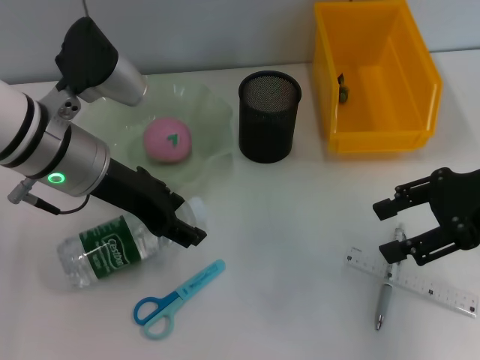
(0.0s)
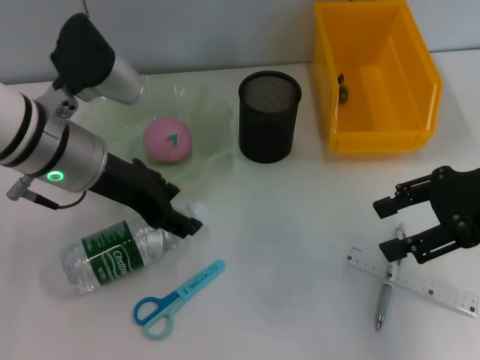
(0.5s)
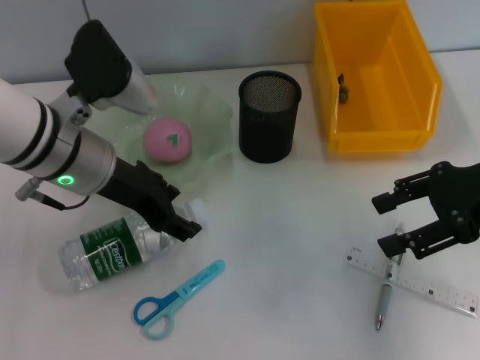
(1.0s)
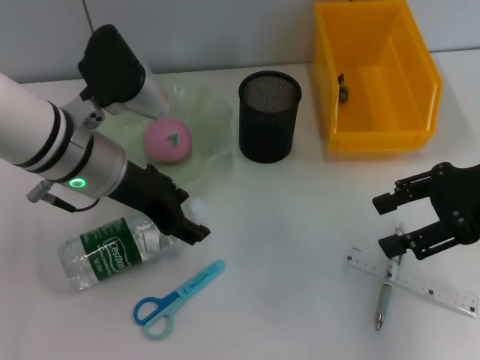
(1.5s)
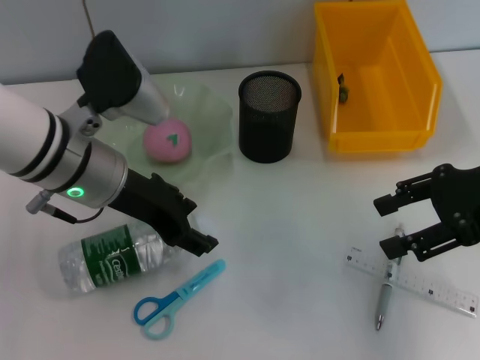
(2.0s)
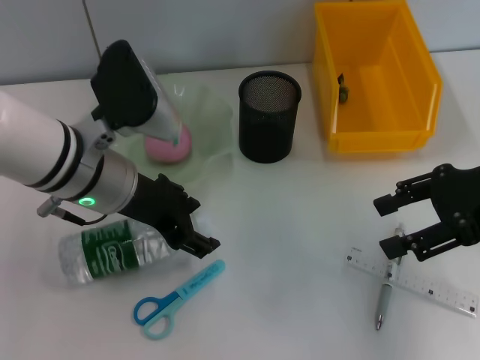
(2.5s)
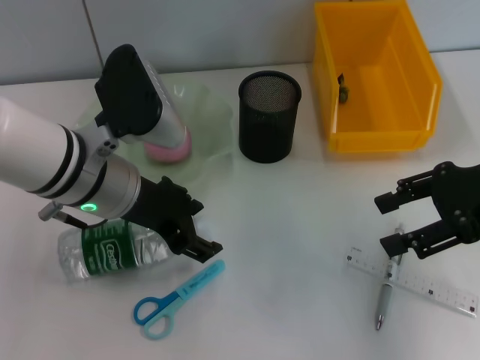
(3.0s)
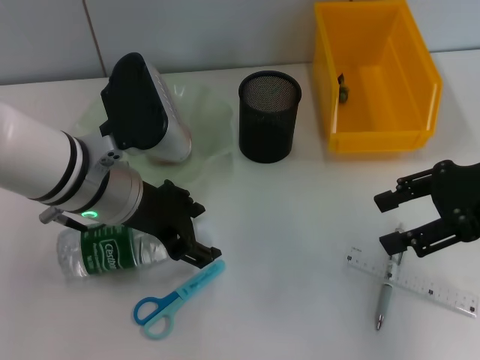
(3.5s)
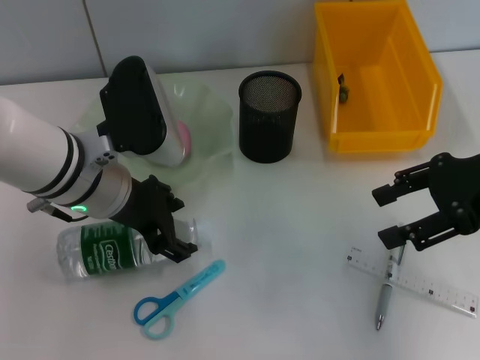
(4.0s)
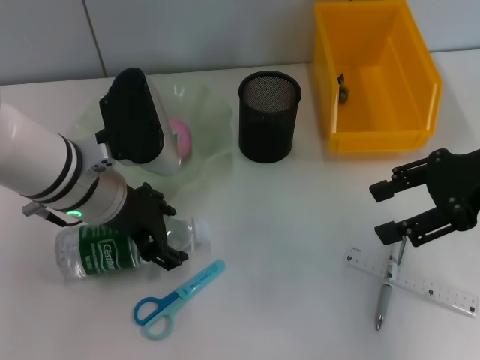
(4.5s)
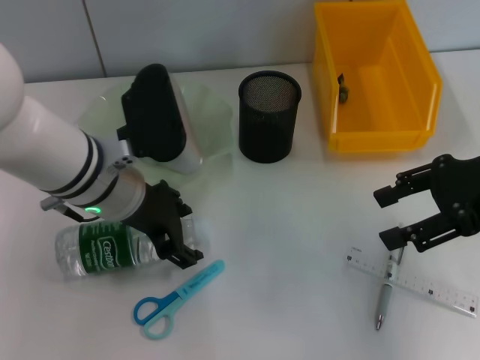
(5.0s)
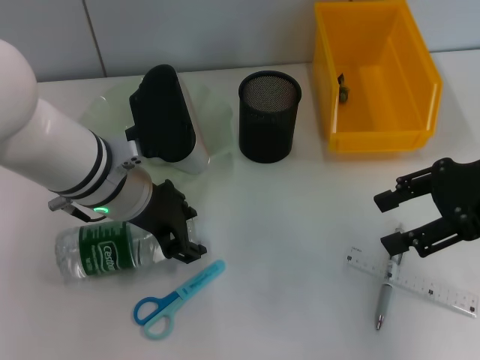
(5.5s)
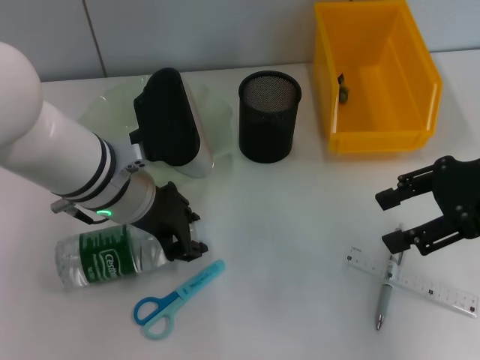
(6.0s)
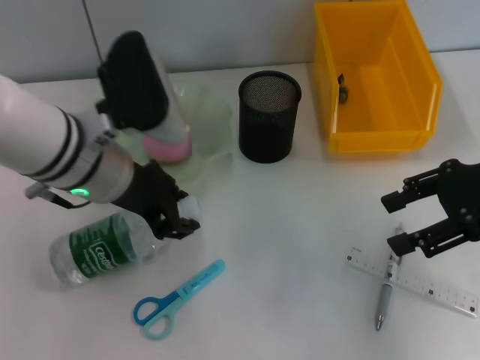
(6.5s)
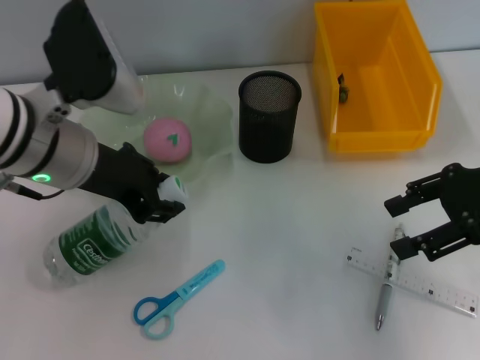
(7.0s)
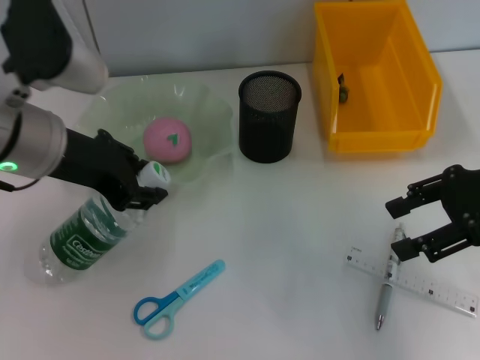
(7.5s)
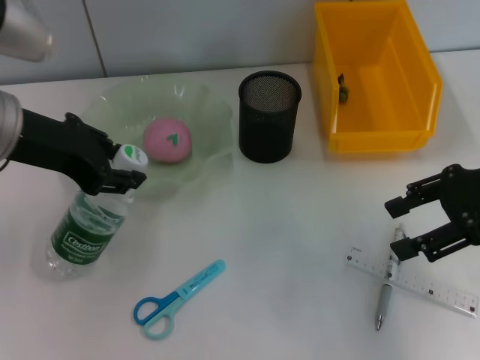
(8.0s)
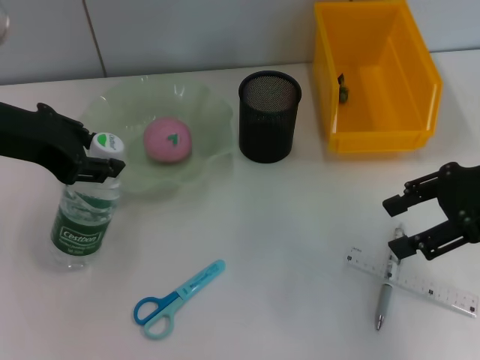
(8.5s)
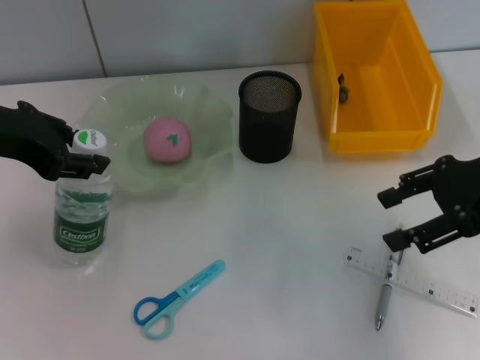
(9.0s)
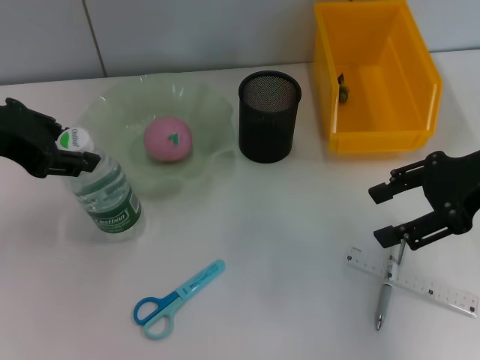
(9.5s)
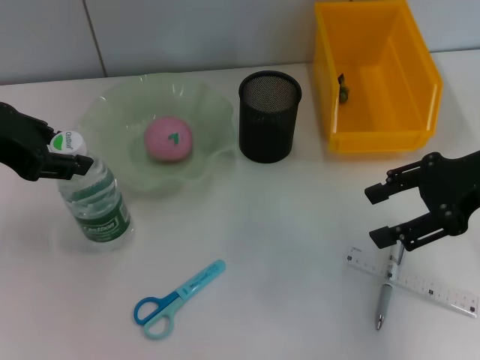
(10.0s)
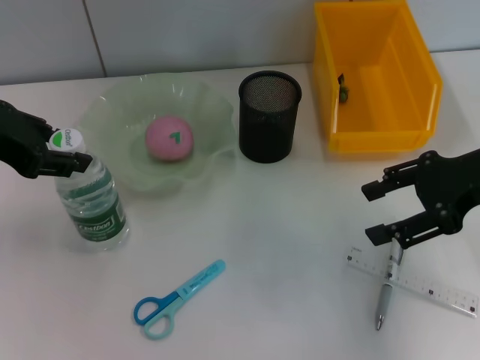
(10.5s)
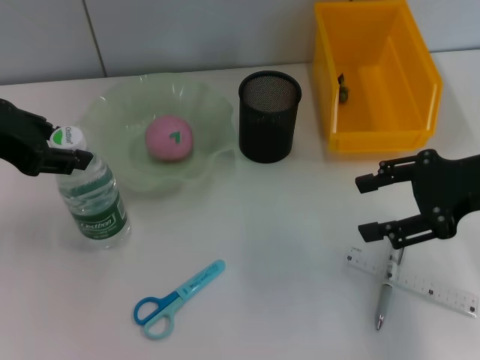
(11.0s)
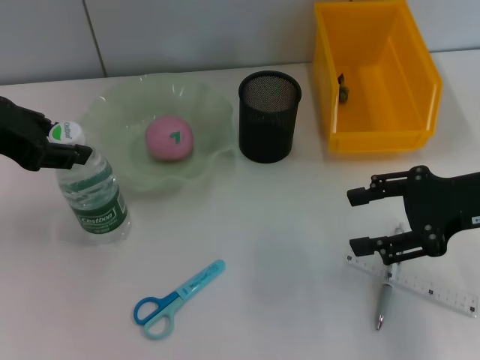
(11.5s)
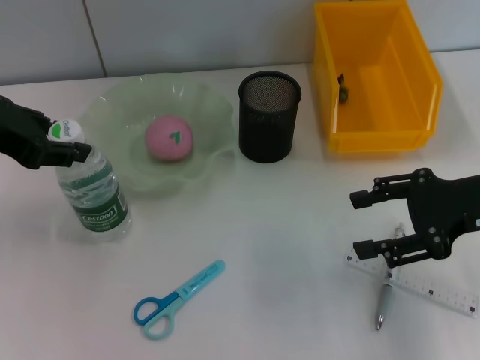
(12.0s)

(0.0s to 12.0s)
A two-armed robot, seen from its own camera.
Step, 0.0s - 5.5s: Grab the water bottle with the left hand.
0.0s - 2.0s: There are only small adjustments of the grippers.
2.0s - 4.0s: The grippers move only a little.
4.0s - 6.0s: The left gripper closes.
6.0s - 8.0s: The left gripper shifts about 15 cm to the left and upward.
8.0s - 10.0s: The left gripper shifts by roughly 5 cm.
10.0s - 12.0s: The grippers stay close to where they were, moving slightly.

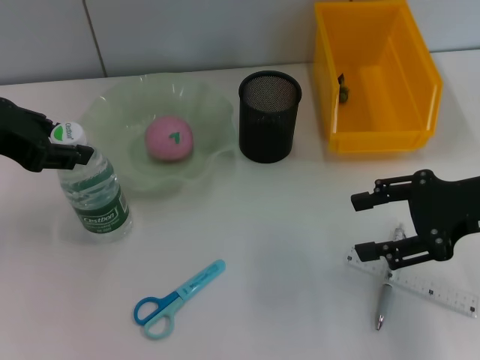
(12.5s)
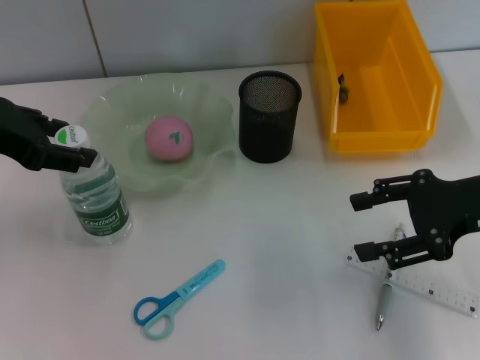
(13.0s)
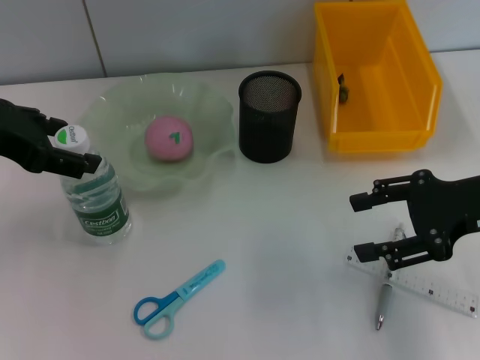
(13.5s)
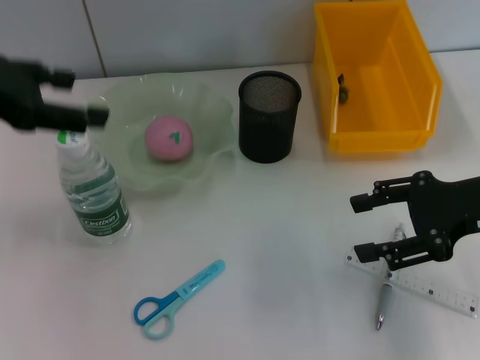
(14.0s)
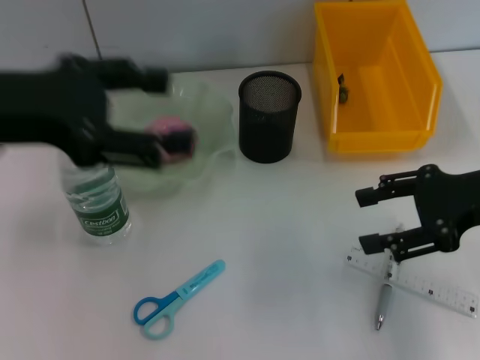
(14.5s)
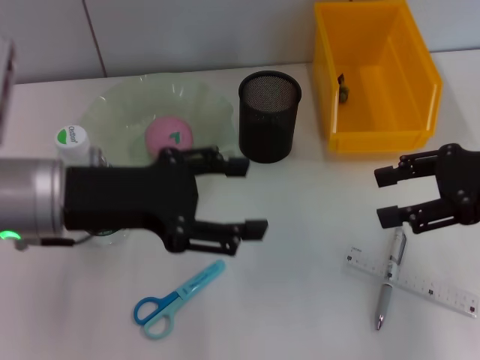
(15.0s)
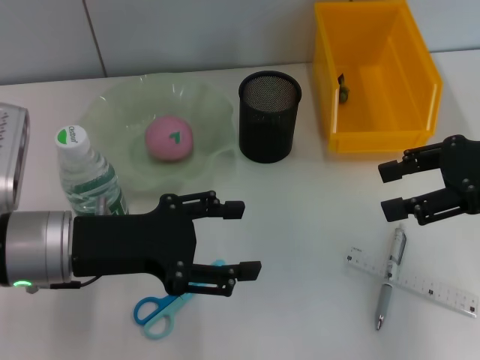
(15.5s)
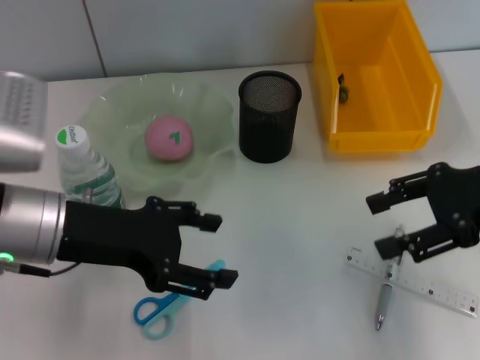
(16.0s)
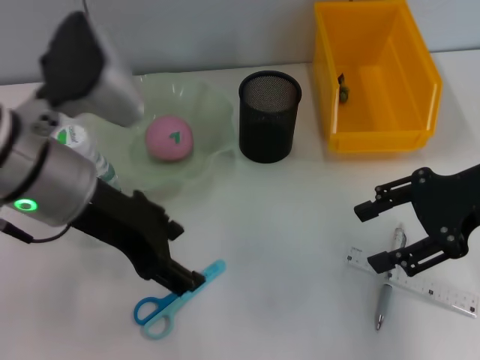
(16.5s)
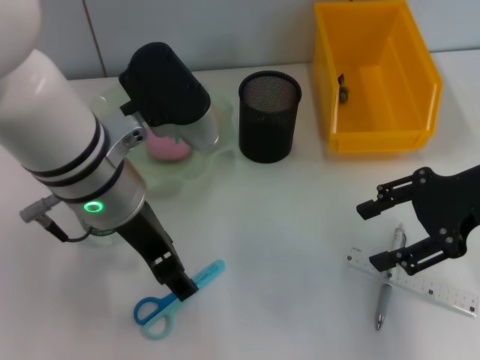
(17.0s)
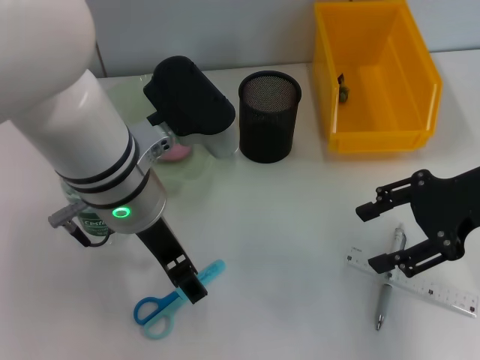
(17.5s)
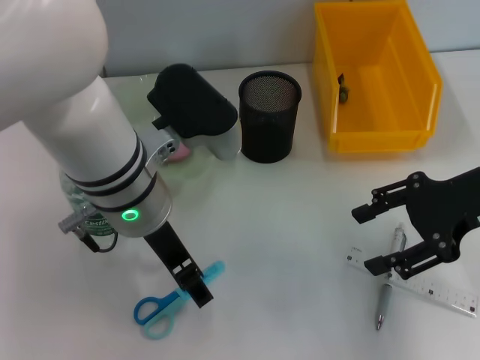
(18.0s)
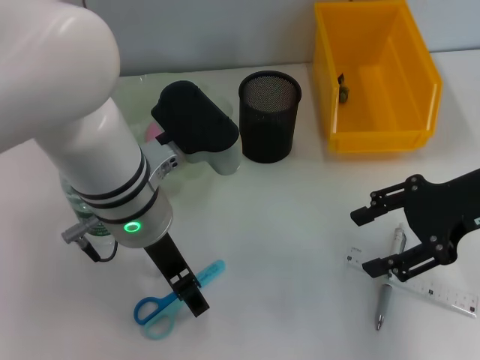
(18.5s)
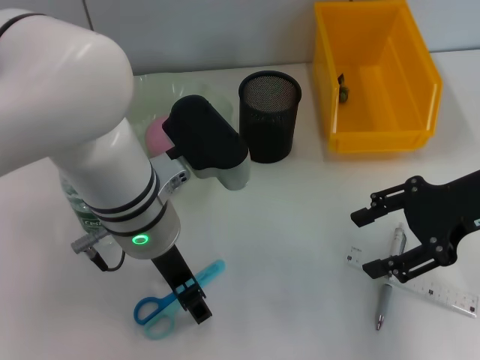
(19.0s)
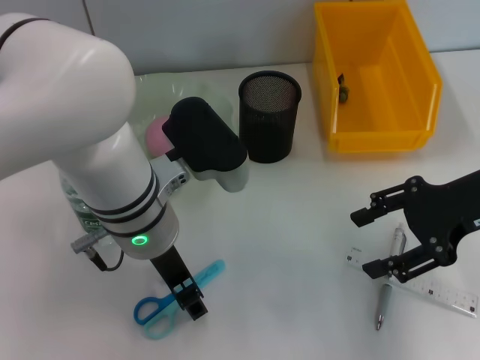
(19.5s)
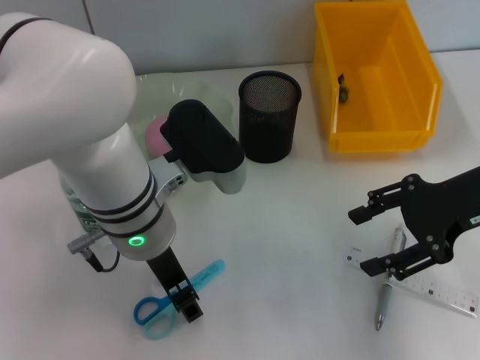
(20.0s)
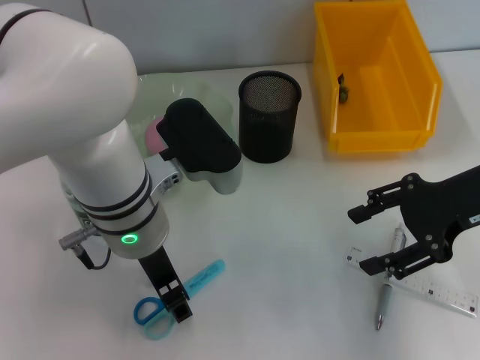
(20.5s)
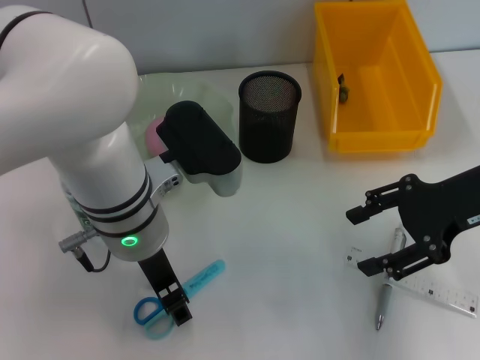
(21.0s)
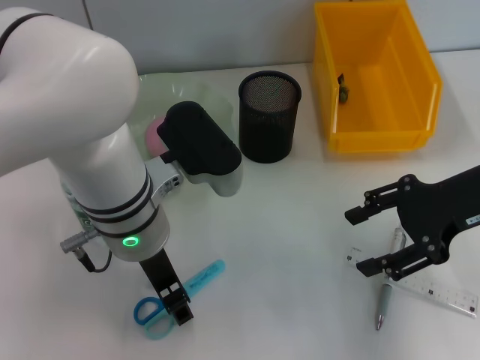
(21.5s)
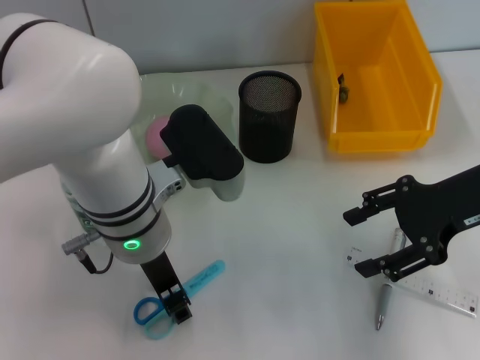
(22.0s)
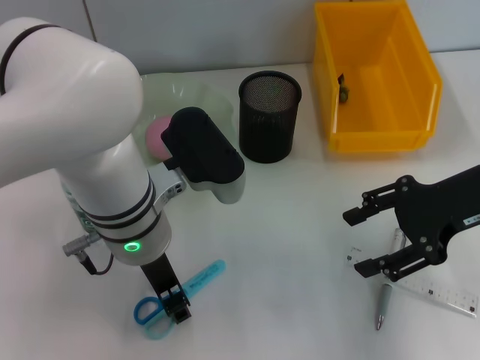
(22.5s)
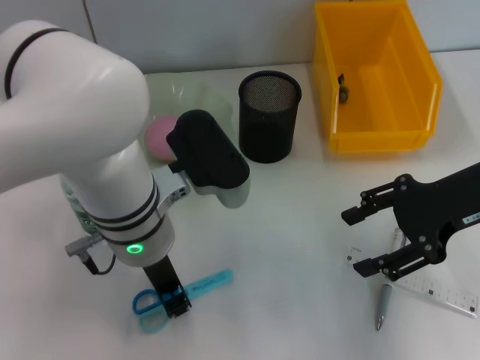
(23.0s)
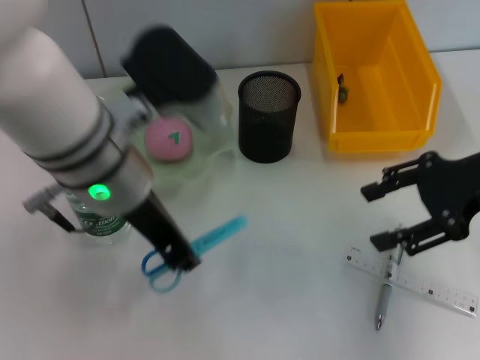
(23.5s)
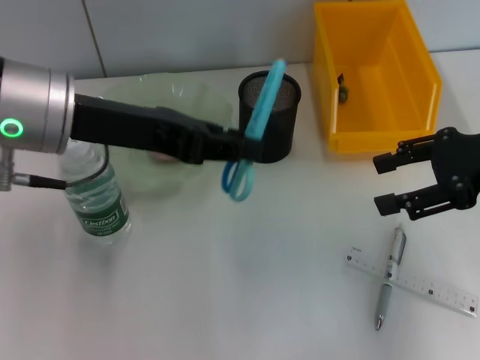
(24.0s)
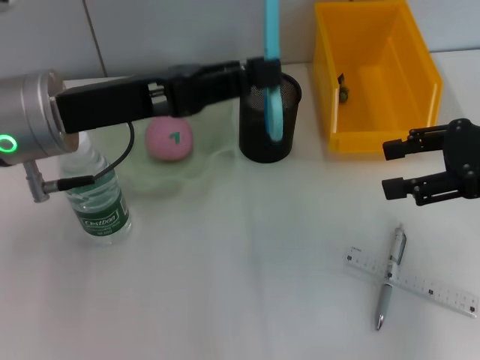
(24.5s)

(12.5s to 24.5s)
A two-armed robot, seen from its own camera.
Step, 14.0s - 22.5s: Grab the blue scissors with the left hand.
12.5s - 14.5s: The left gripper changes place by approximately 5 cm, and opens.
14.5s - 16.5s: The left gripper heads to the right, covering some 5 cm, and moves about 15 cm downward and comes back.
16.5s - 18.5s: The left gripper heads to the right and downward, covering approximately 10 cm.
18.5s - 20.5s: The left gripper closes its fingers.
20.5s - 22.5s: The two grippers keep their place.
22.5s - 24.5s: The right gripper moves about 5 cm, while the left gripper goes roughly 10 cm to the left and upward, and closes.

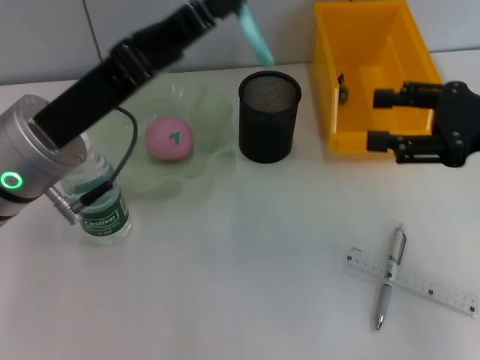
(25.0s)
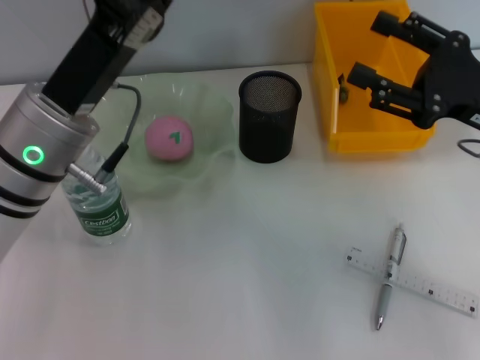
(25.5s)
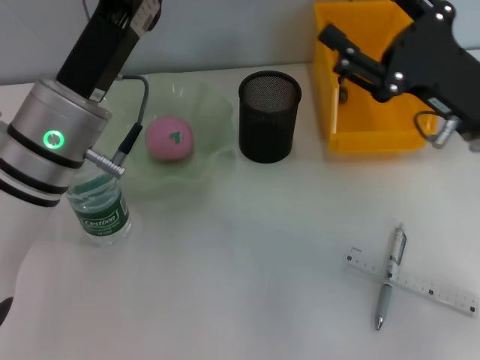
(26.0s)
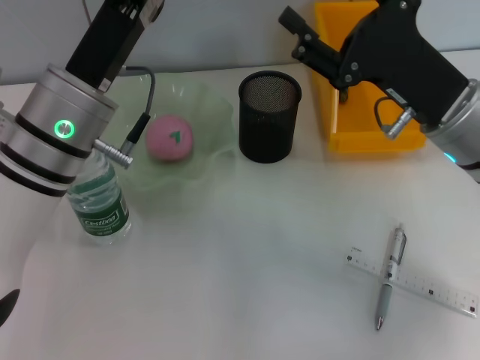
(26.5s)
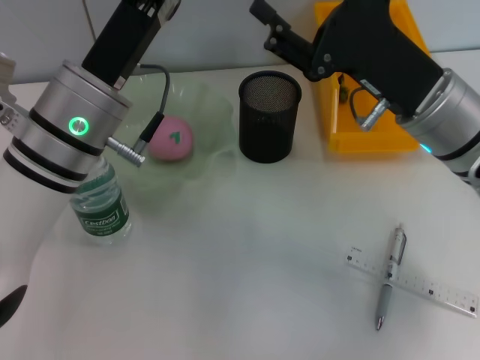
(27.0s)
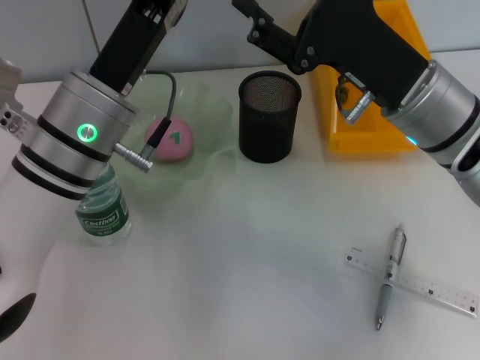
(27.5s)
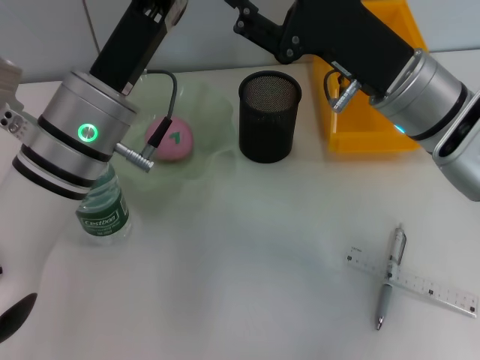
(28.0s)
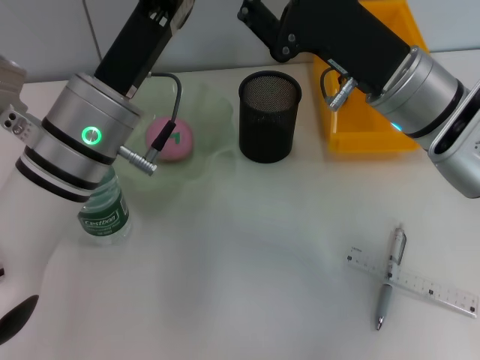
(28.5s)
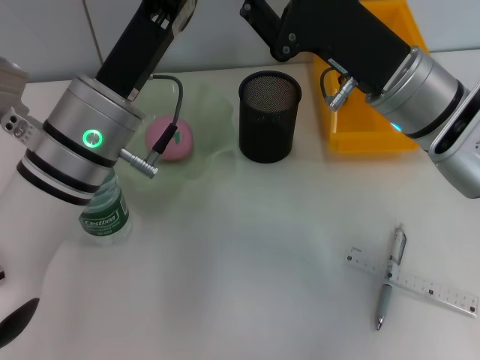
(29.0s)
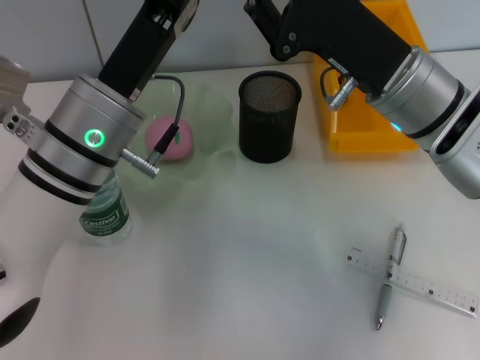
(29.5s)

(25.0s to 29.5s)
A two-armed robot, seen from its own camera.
25.0s - 27.0s: The right gripper heads to the left, covering some 15 cm.
27.0s - 29.5s: The right gripper closes up.
